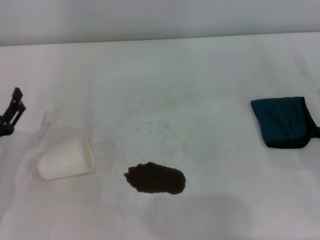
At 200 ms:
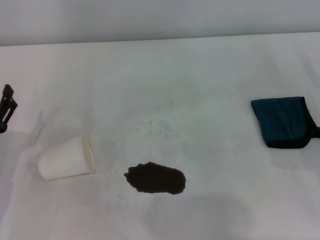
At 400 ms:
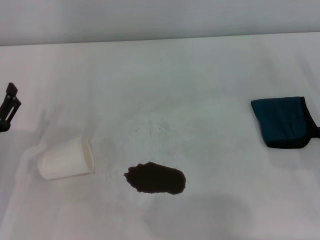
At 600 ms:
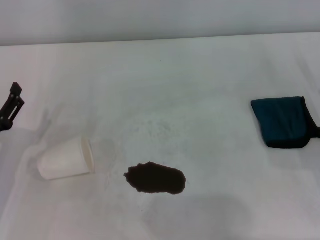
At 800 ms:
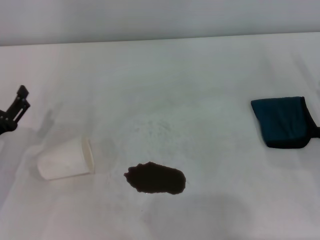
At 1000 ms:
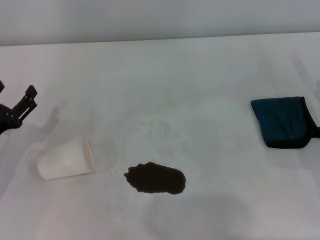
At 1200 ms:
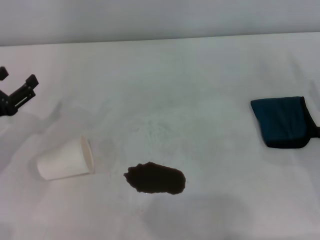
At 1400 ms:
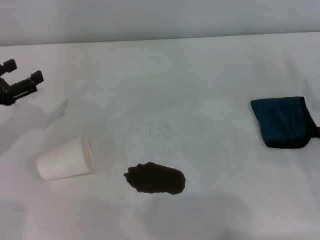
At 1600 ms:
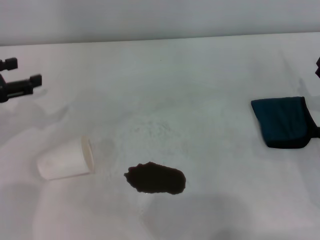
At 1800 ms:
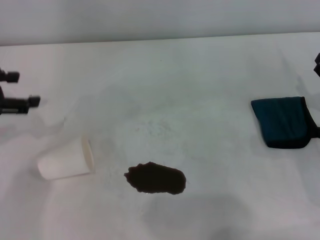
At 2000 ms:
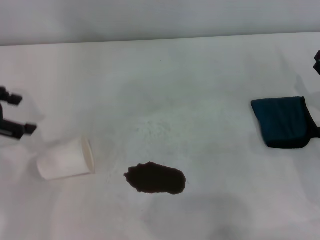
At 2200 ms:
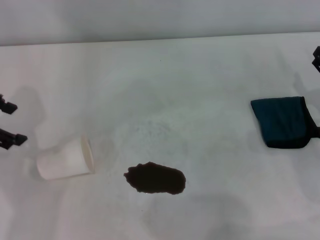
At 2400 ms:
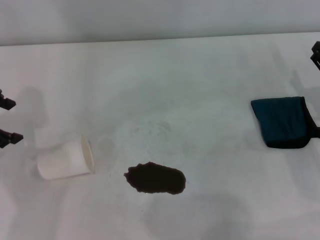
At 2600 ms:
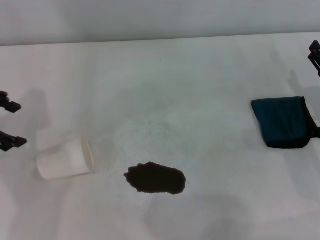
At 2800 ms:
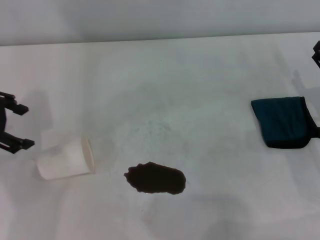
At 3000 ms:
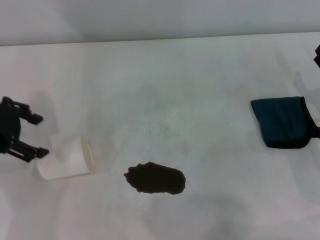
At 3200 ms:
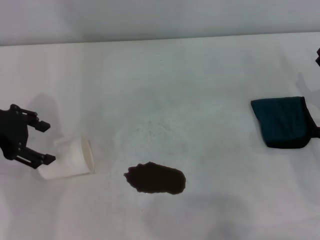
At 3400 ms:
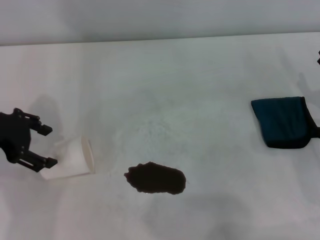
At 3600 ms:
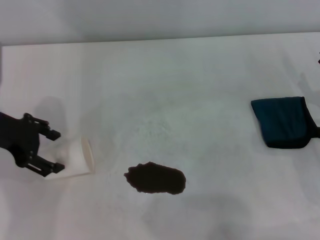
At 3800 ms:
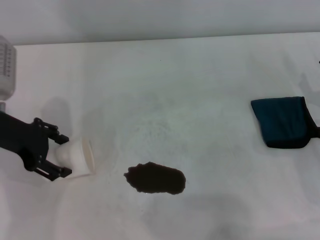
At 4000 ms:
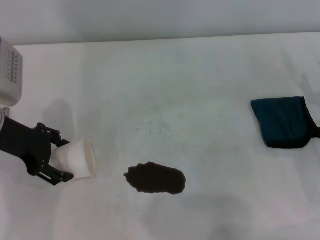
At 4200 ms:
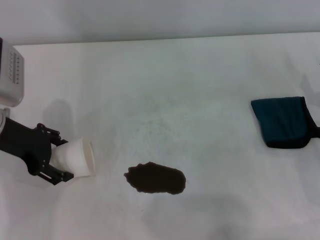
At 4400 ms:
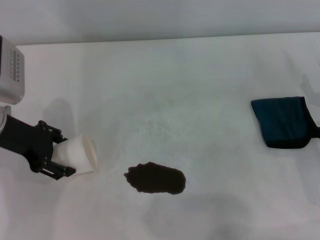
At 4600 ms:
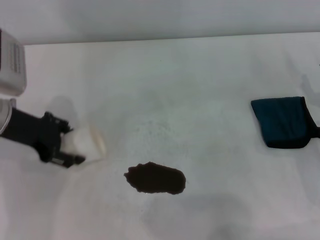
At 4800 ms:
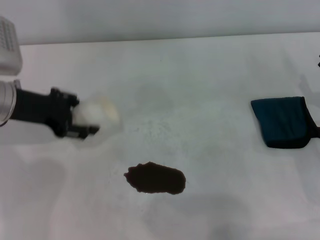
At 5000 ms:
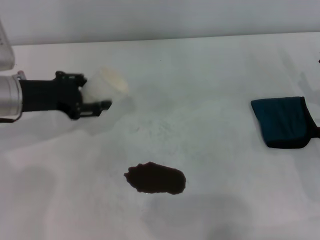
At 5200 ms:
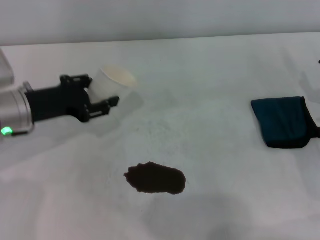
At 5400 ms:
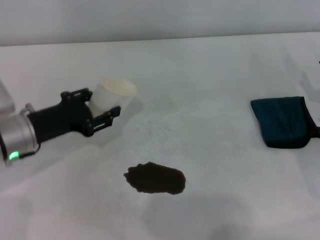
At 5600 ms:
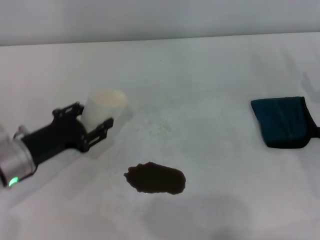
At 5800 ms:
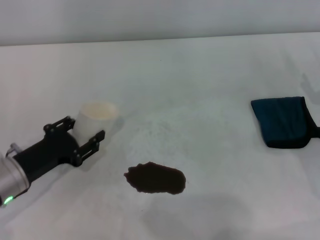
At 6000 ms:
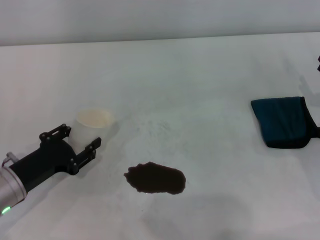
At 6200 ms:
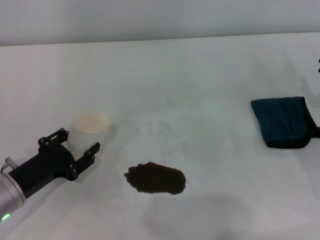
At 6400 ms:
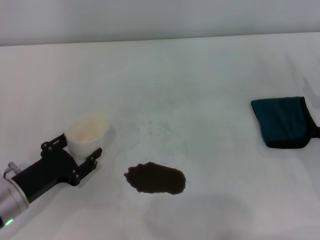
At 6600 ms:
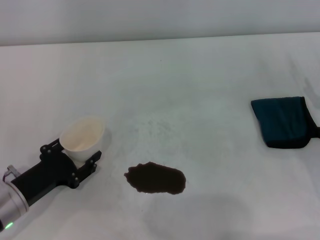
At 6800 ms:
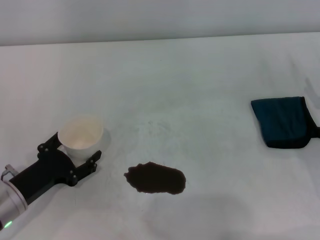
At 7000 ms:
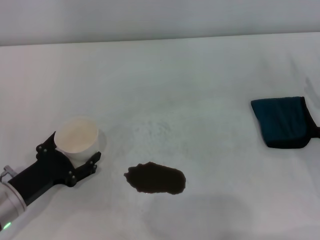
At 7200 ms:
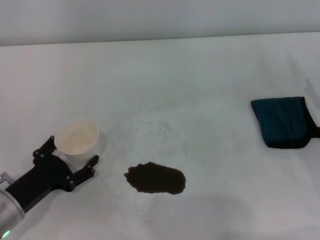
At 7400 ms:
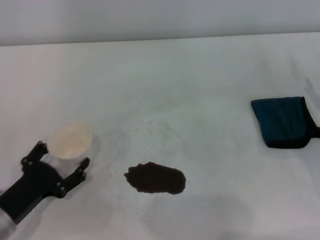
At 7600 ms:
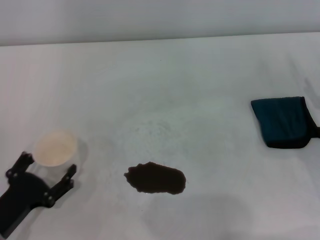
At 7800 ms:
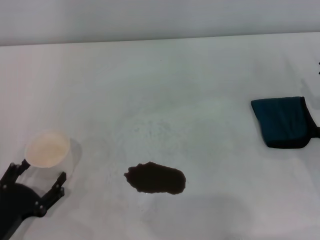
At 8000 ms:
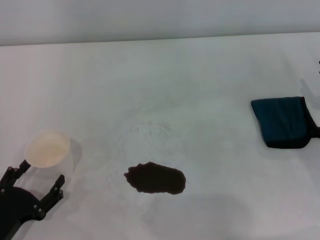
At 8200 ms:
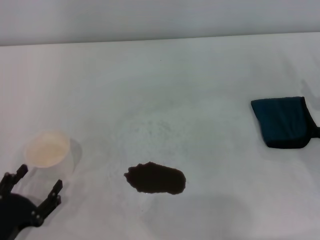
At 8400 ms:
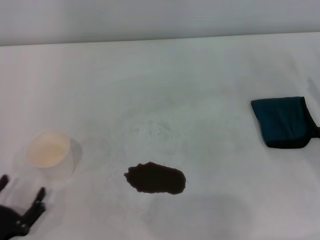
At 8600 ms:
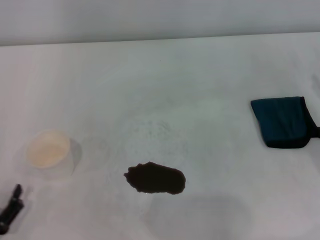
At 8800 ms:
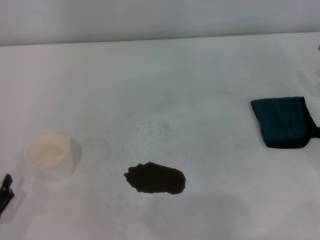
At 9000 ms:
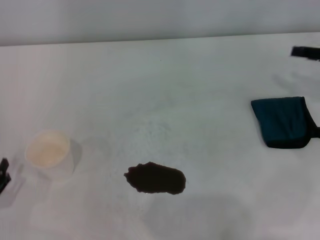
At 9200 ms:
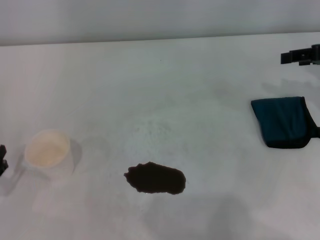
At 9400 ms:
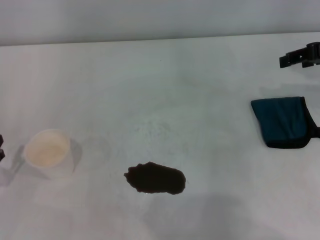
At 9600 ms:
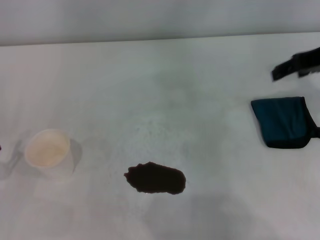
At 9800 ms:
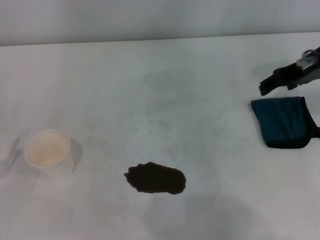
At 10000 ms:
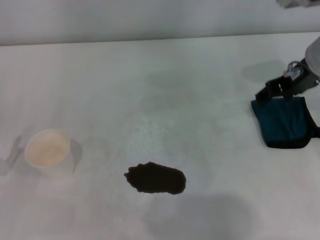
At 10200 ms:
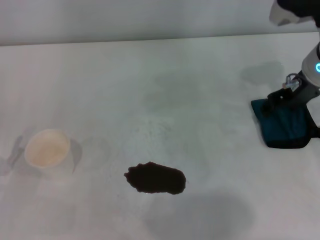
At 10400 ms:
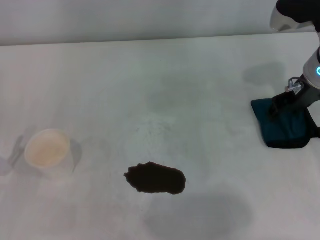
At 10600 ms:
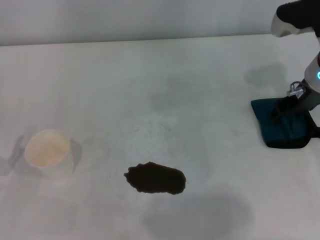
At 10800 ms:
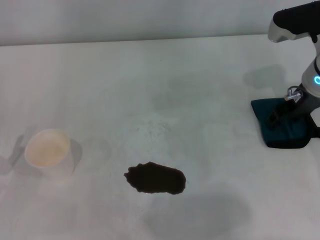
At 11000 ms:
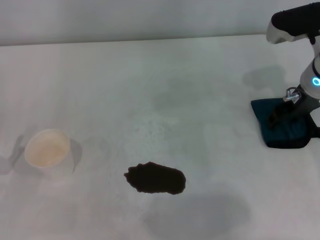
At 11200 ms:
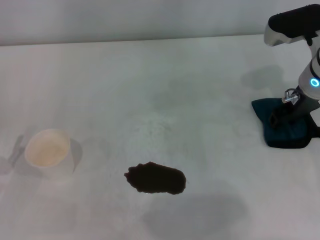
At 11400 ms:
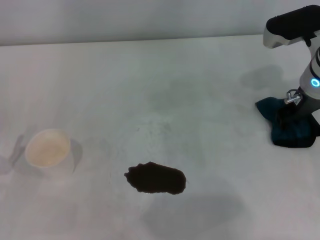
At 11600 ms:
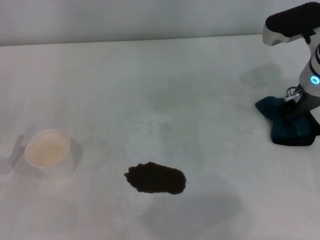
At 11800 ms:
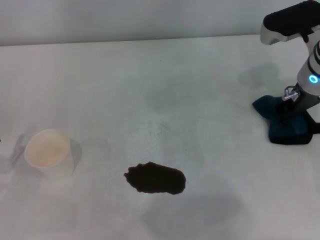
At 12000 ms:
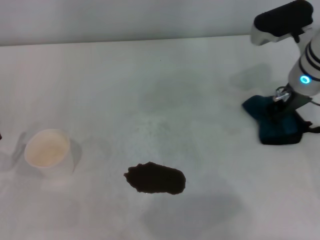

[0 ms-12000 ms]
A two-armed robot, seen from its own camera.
Step, 0 ms to 4000 ms: Grasp the paper cup with the left gripper.
Step, 4400 ms to 7600 ms: Stand the paper cup upright with the left gripper.
Step, 7800 ms to 11400 ms: Grasp the rag with the right gripper.
0 ms to 1600 ms: The left gripper is displaced upward and forward by roughly 15 cm.
1600 ms to 3000 ms: The left gripper changes place by some 5 cm.
3000 ms to 4400 ms: The left gripper heads downward, covering about 5 cm.
4400 ms to 6000 ms: The left gripper travels downward and backward by about 15 cm, and closes up.
6000 ms to 7600 ms: The left gripper moves backward, some 10 cm, and opens its fingers.
7600 ms to 9000 ms: The left gripper ends up some 5 cm from where it was.
9000 ms to 10400 ms: The right gripper shifts some 15 cm to the left.
10400 ms to 12000 ms: The right gripper closes up.

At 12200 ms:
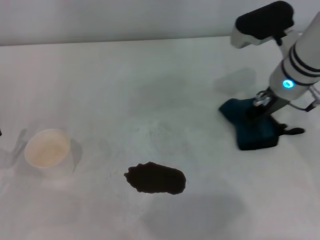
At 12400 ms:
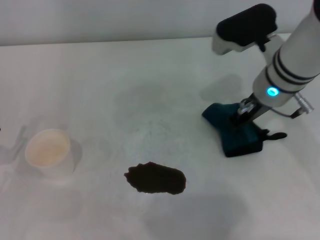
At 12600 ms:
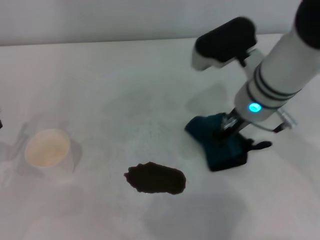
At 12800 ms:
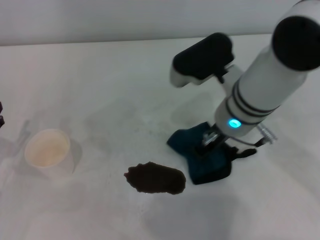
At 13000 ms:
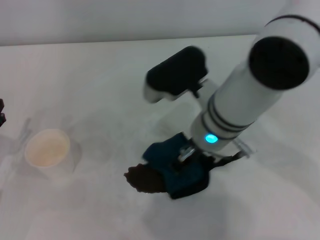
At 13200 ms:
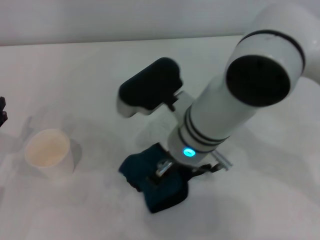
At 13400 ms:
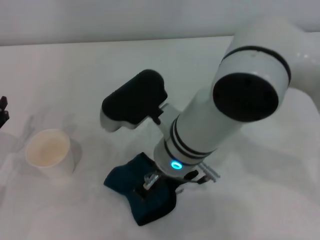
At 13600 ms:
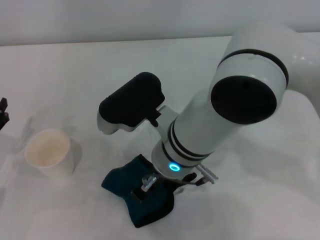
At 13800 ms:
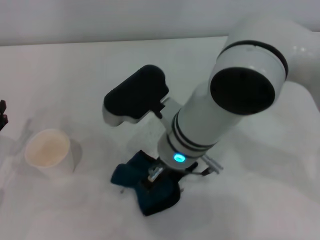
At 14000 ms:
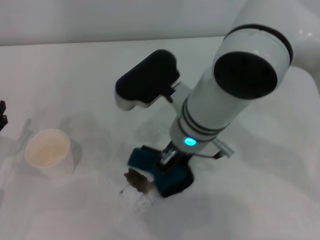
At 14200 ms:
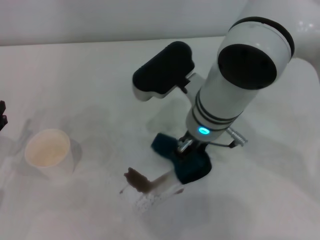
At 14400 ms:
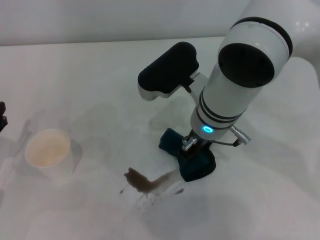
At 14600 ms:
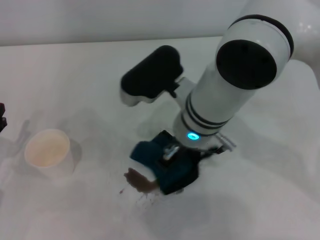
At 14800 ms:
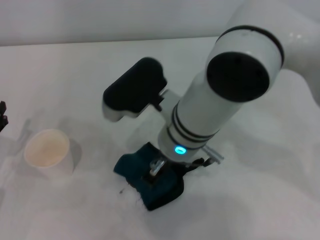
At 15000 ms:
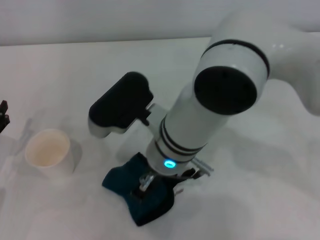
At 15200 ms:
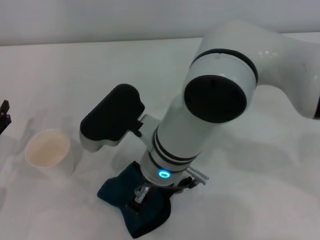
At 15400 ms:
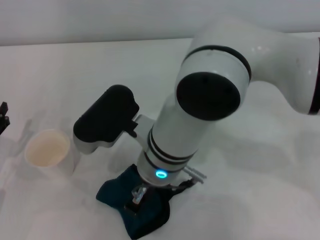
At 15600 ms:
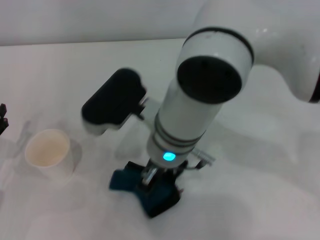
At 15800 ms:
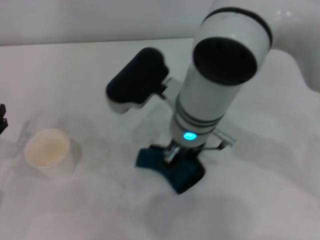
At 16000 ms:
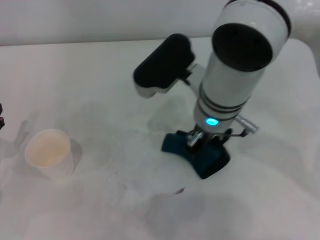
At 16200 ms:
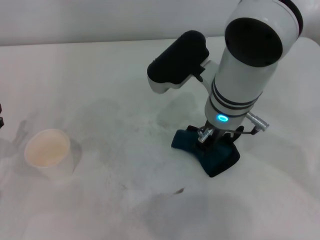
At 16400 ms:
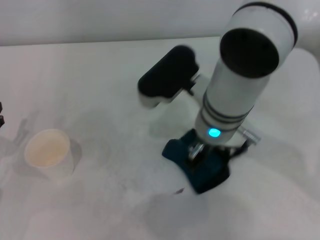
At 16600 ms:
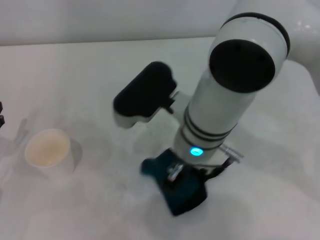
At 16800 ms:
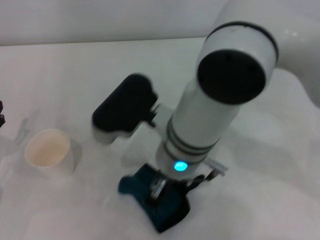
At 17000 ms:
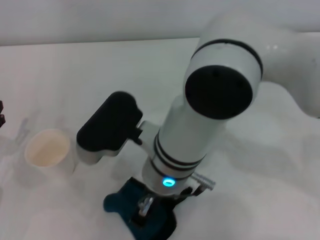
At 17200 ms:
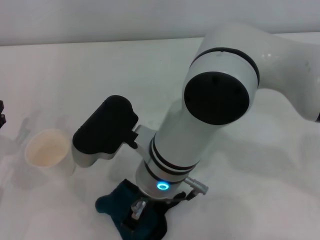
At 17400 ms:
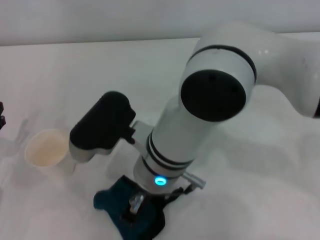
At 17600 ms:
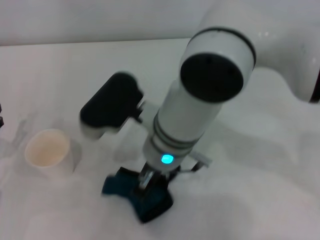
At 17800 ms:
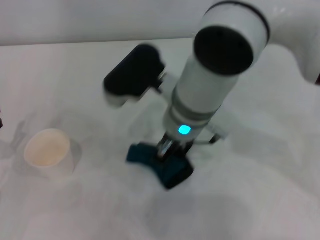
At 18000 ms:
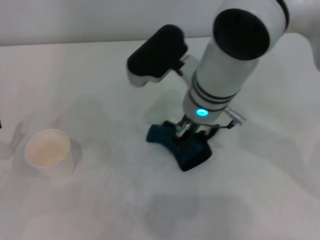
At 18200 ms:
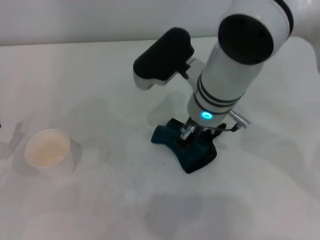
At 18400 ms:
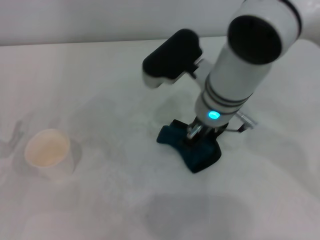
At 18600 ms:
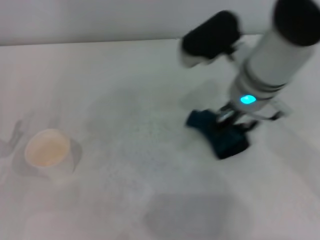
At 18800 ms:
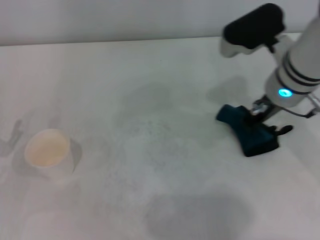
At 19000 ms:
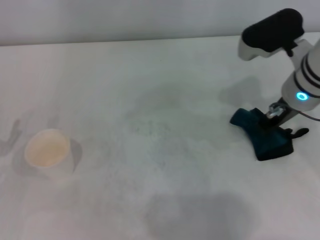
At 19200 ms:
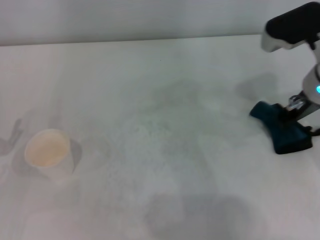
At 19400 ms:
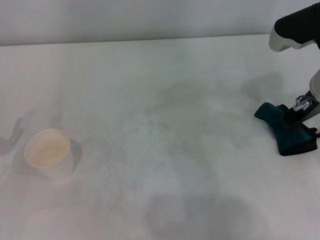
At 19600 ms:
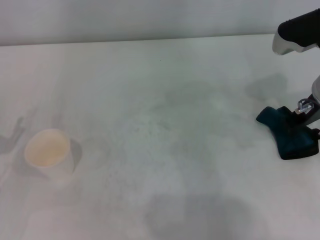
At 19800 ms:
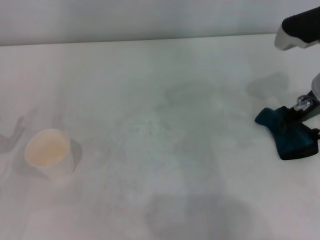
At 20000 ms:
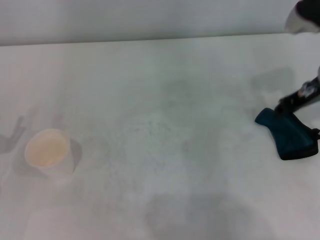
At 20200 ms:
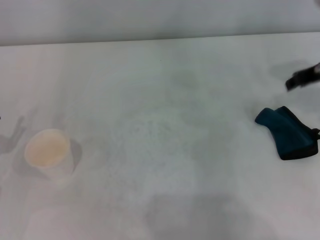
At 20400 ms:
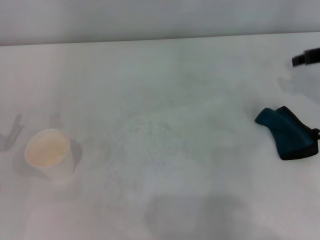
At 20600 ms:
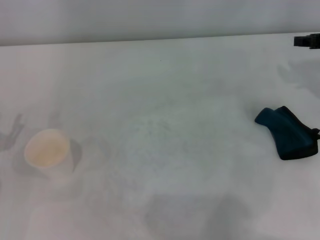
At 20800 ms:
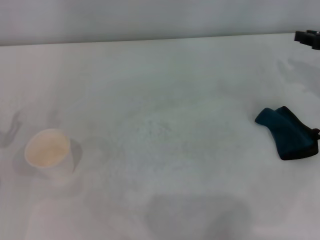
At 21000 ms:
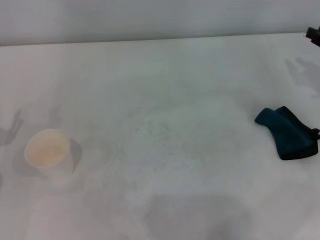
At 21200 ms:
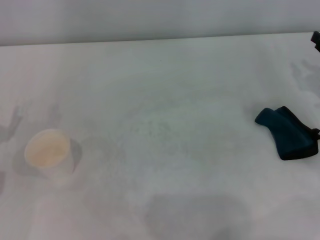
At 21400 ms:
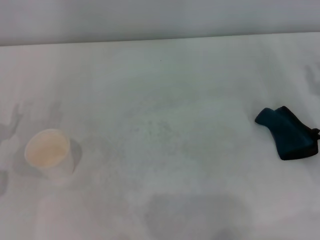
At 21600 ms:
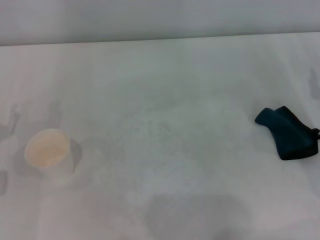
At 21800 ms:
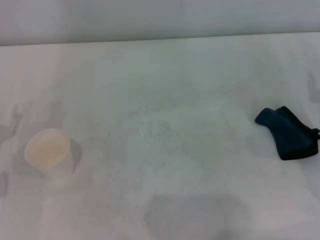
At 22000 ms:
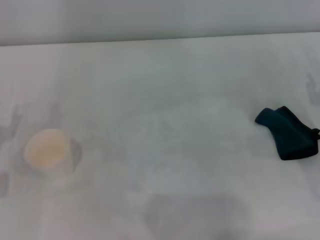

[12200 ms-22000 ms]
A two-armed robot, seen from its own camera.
Step, 12200 ms to 18800 ms: Wipe the stains off the table with the right gripper.
Step, 19000 ms to 19600 ms: Place the rag on the table with the right gripper.
12200 ms to 13600 ms: The right gripper is displaced to the left and backward by roughly 20 cm.
15000 ms to 16400 ms: The right gripper is displaced to the right by approximately 5 cm.
17800 ms to 19200 ms: The right gripper moves to the right, about 20 cm.
19200 ms to 20600 ms: The right gripper shifts some 10 cm to the right.
20600 ms to 22000 ms: The right gripper moves downward and backward, about 15 cm.
